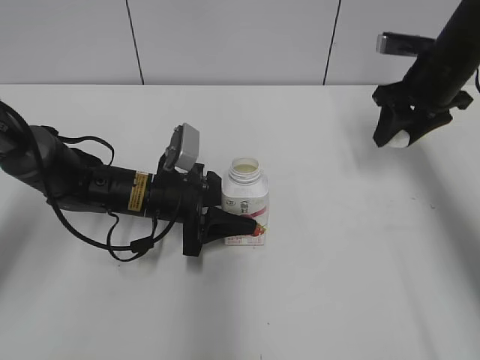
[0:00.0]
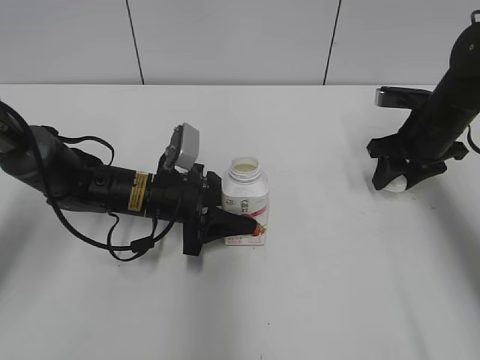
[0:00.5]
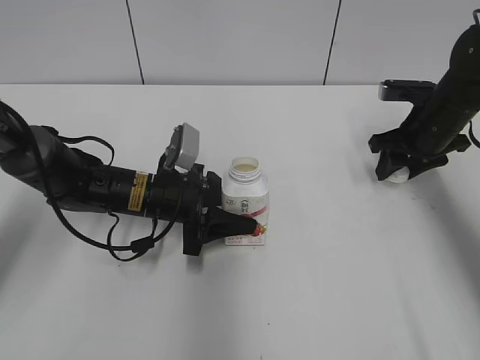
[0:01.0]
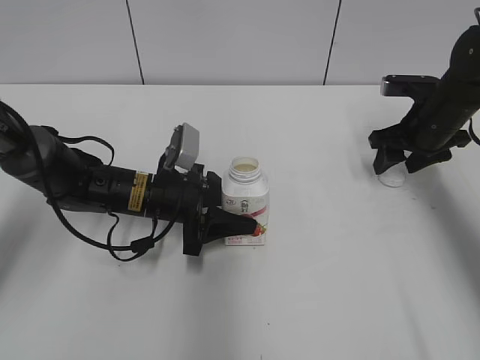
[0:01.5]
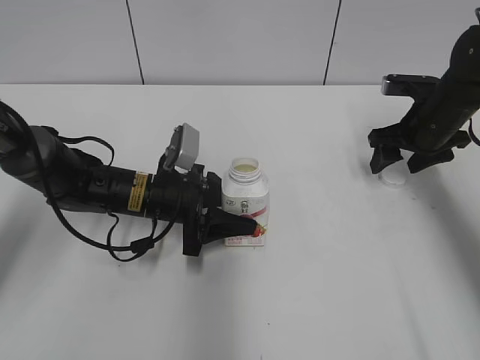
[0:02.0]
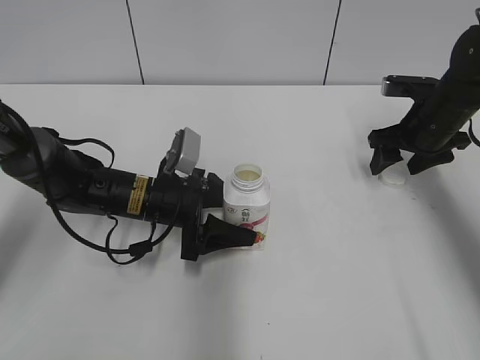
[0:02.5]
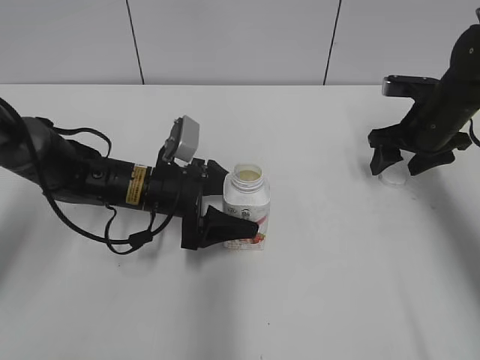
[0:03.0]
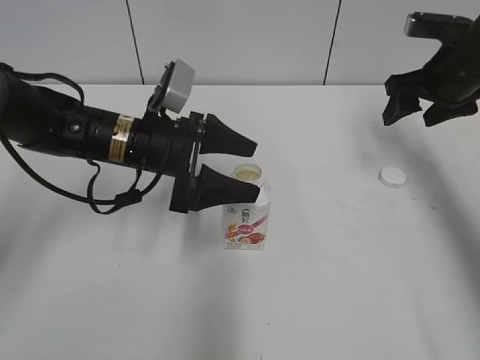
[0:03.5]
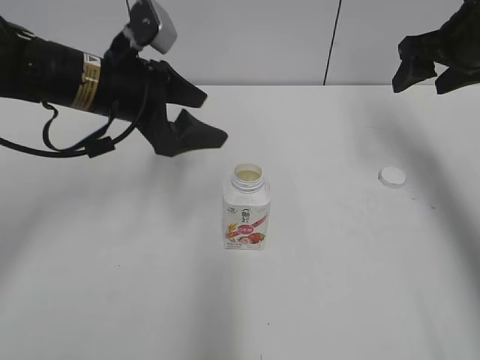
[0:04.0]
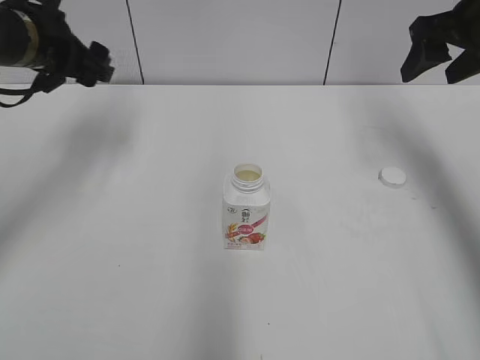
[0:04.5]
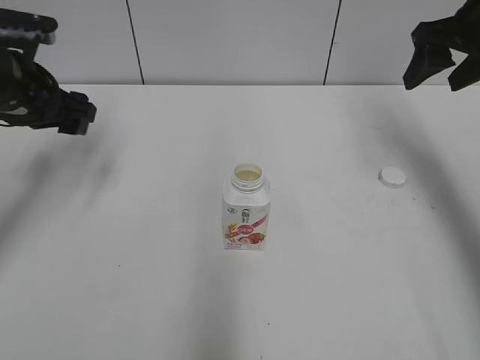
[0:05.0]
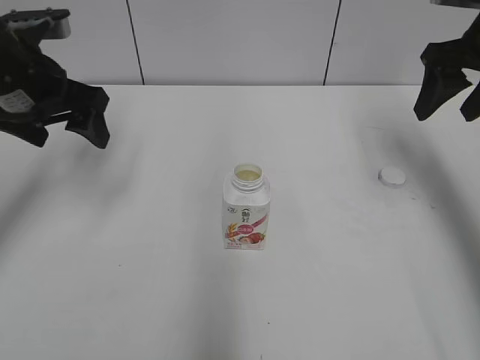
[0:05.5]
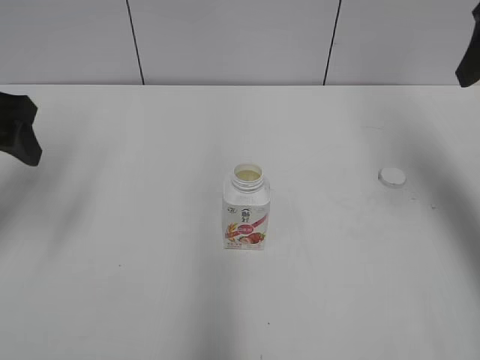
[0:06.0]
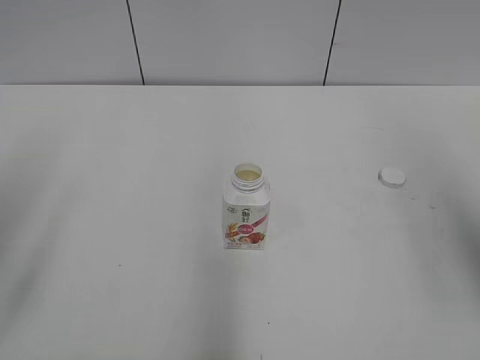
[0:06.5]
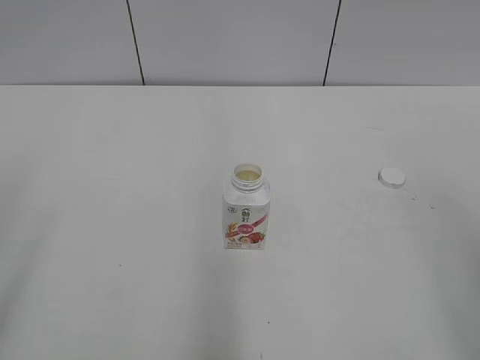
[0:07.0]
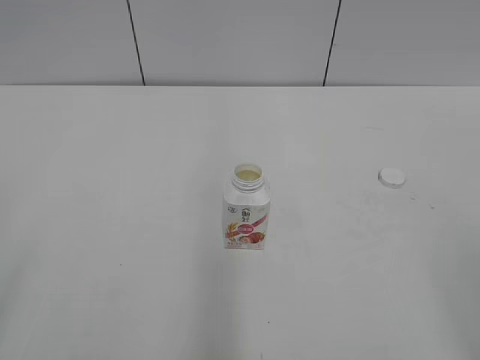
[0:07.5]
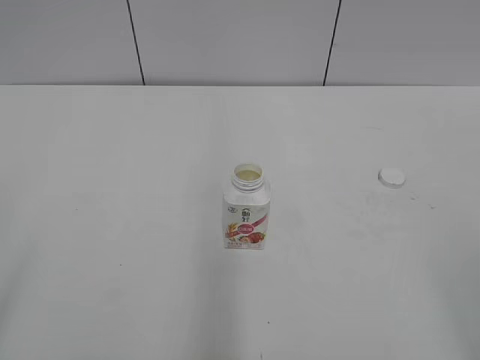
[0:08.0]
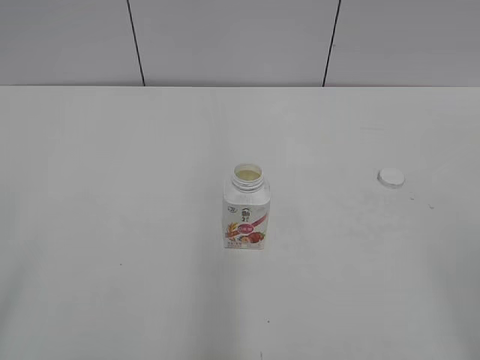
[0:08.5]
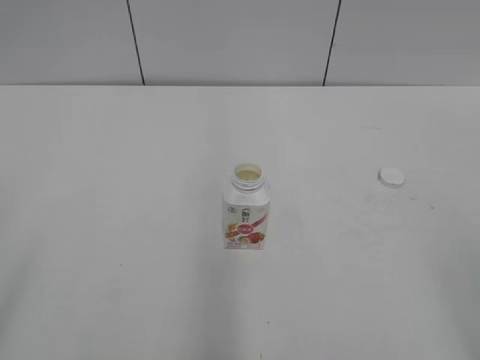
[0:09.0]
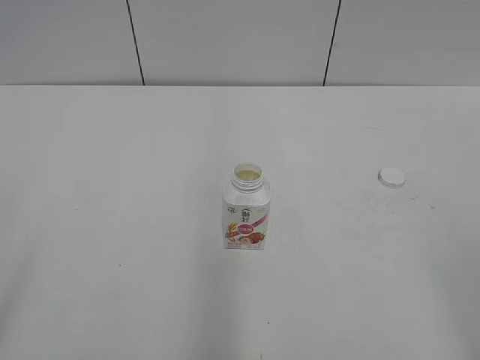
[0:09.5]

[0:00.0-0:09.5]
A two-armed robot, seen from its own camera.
Step, 0:00.0 to 0:01.5: Place the bottle cap on the right.
Step, 0:02.0 to 0:02.5: Place the Yili Changqing with the left hand.
0:00.0 to 0:02.0: The right gripper moves downward, roughly 5 cm, and opens its fingers.
0:02.0 to 0:04.0: Both grippers travel together upward, some 15 cm. The left gripper opens its fingers.
0:04.0 to 0:05.5: The left gripper moves to the left, approximately 10 cm.
0:05.5 to 0:07.5: Both grippers move backward, some 35 cm.

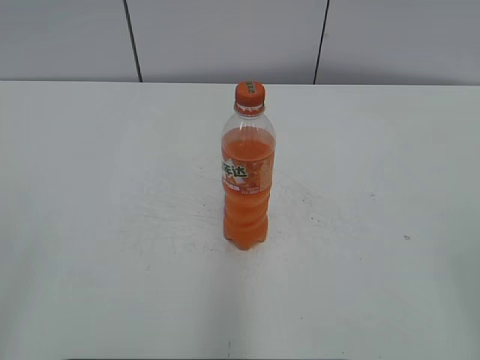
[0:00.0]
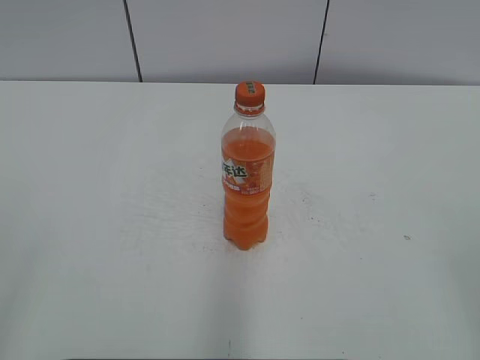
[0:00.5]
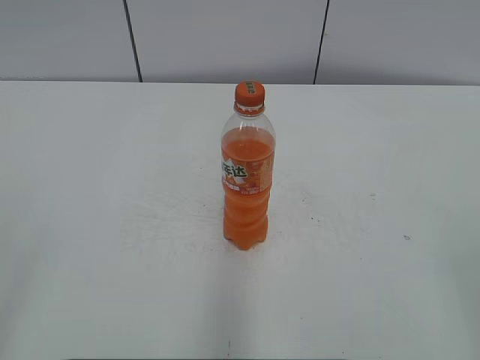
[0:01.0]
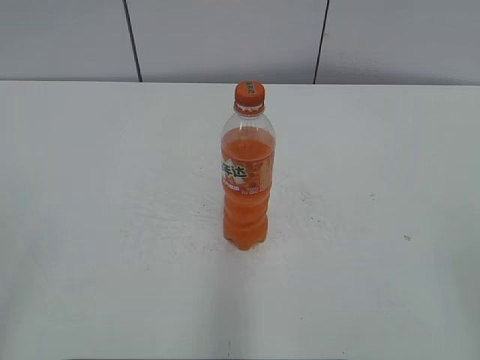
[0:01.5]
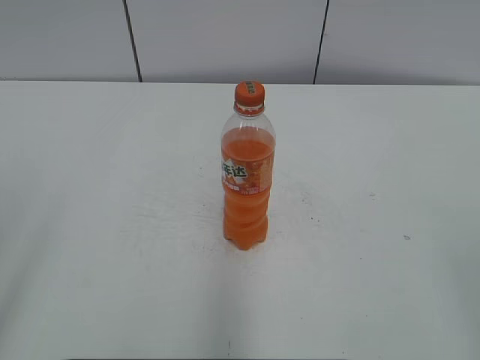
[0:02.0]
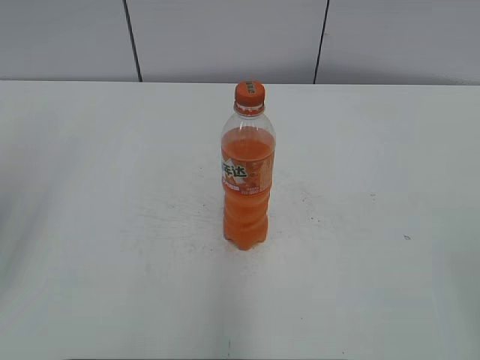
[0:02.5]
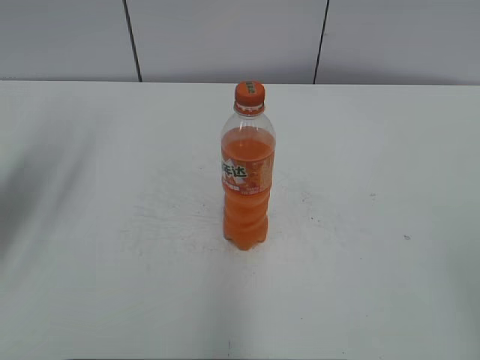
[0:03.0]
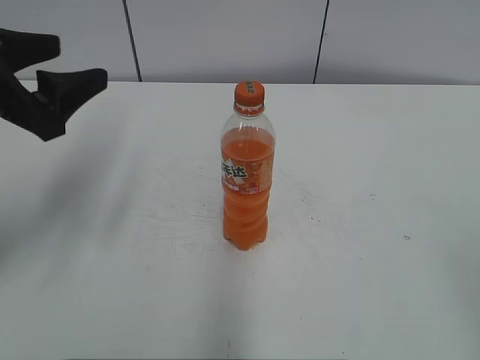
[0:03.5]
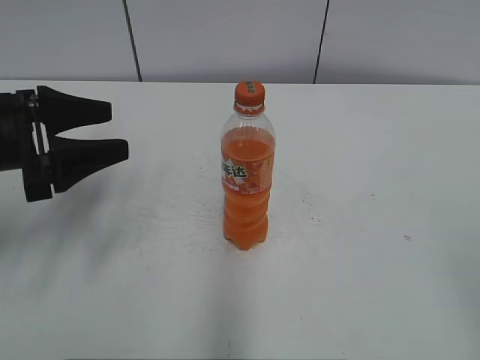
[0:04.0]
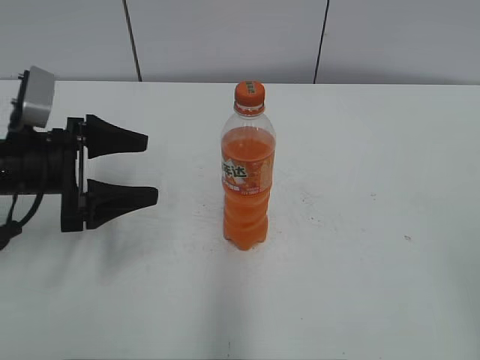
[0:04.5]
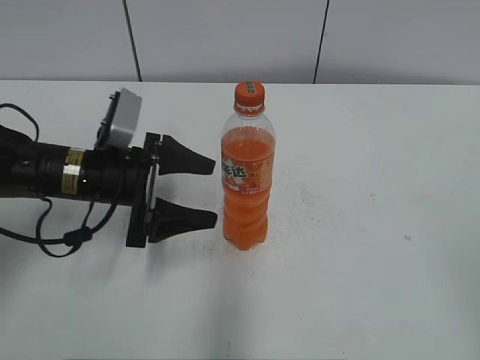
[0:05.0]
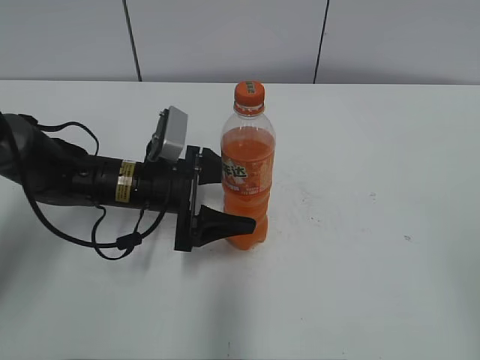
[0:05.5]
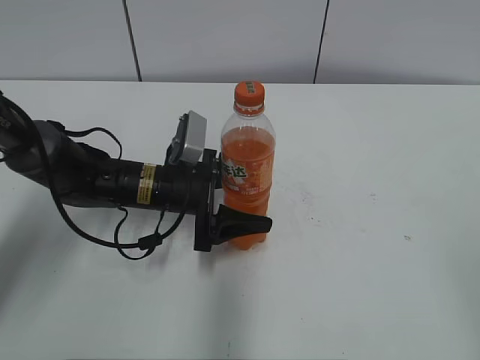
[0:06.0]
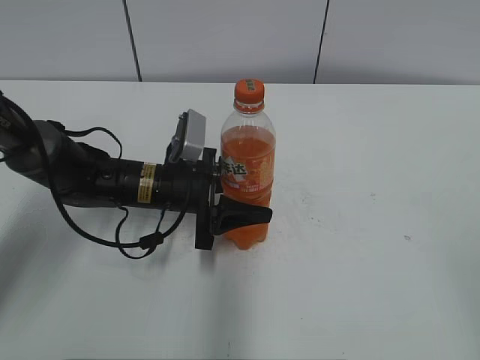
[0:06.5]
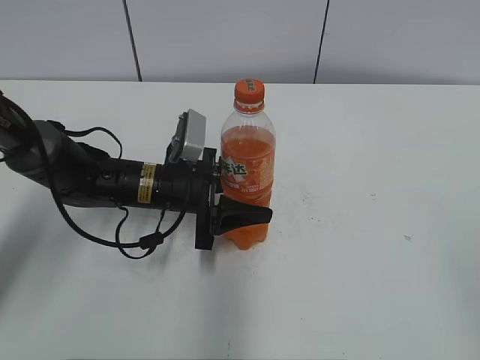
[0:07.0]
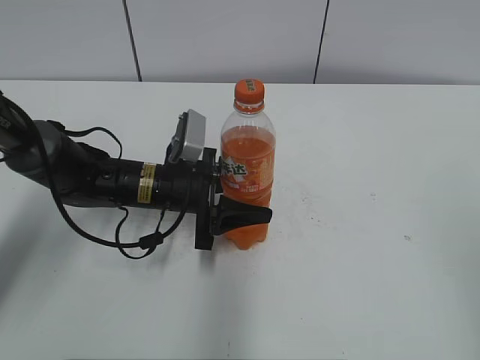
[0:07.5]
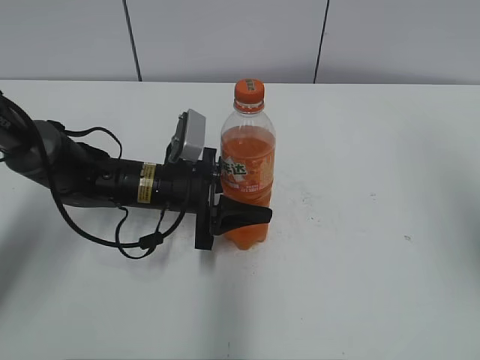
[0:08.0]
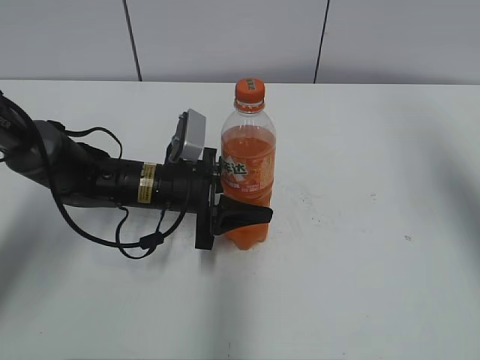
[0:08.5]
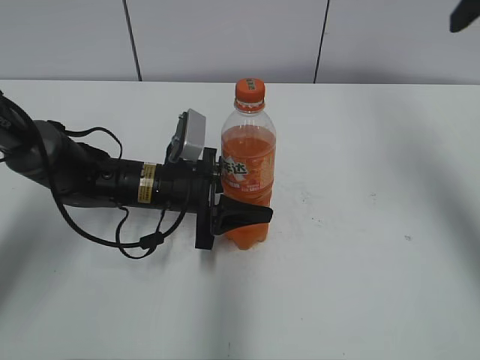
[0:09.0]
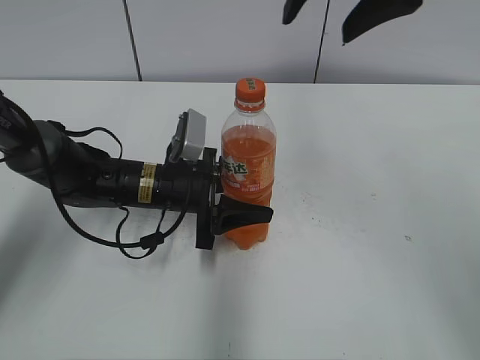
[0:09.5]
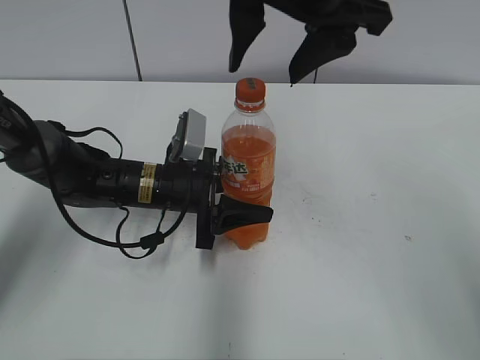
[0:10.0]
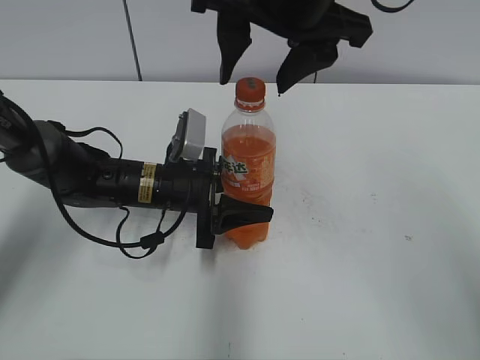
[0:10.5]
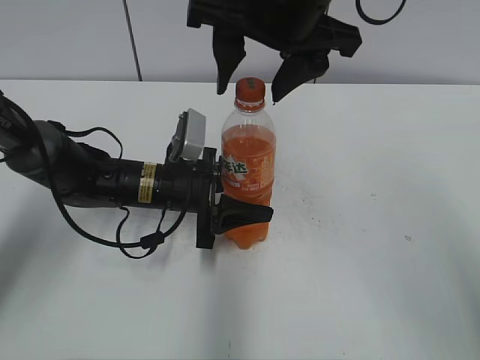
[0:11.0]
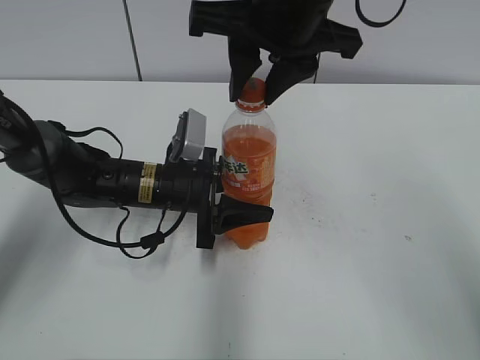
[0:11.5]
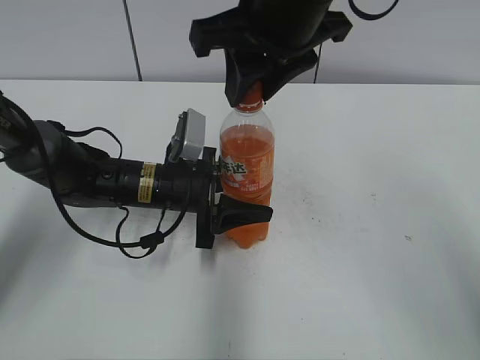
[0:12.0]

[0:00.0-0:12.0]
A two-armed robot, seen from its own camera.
Step, 0:00.0 to 0:06.5: Grab the Mirinda with the left hand.
0:02.0 to 0:04.0: The left gripper heads forward and downward, covering some 30 cm.
0:04.0 to 0:06.0: The left gripper heads to the right, downward and forward, covering approximately 20 cm.
0:06.0 to 0:08.0: The left gripper closes its fingers. Meanwhile the right gripper moves forward and upward, some 15 cm.
0:08.0 to 0:10.0: The right gripper is displaced to the left and forward by approximately 30 cm.
0:10.0 to 0:12.0: The right gripper closes its fingers.

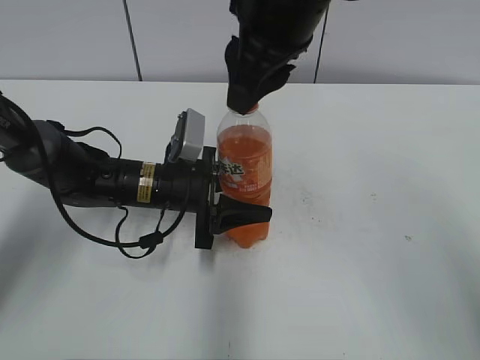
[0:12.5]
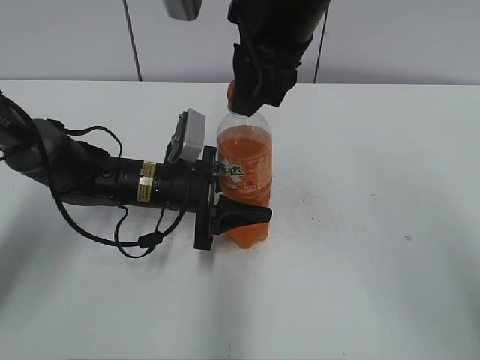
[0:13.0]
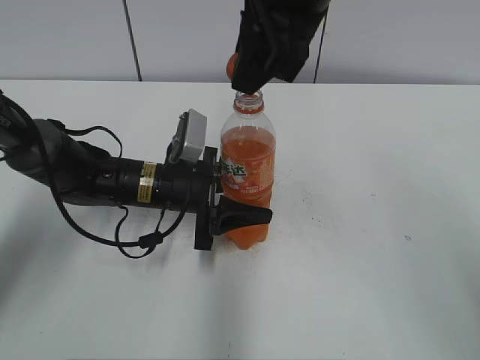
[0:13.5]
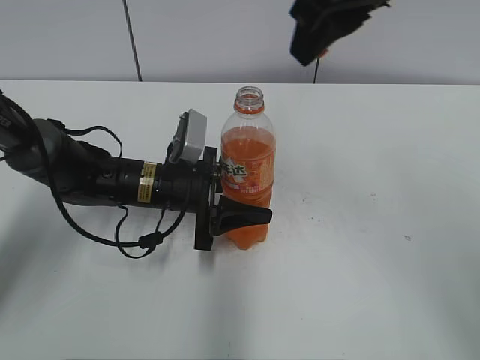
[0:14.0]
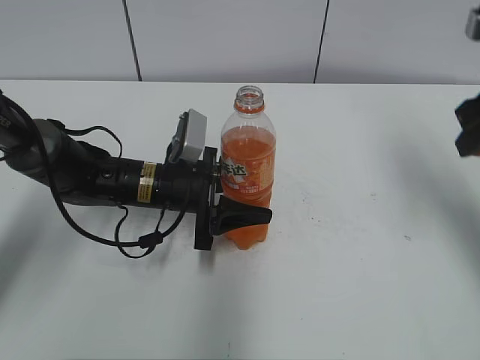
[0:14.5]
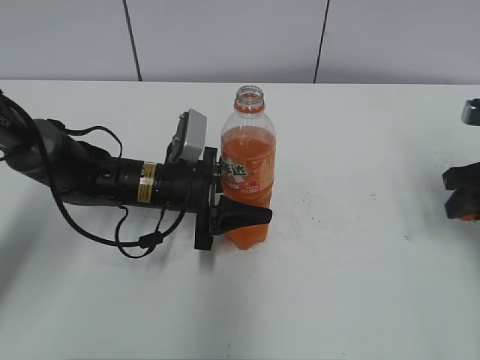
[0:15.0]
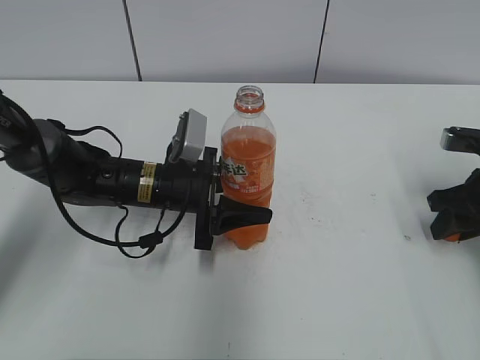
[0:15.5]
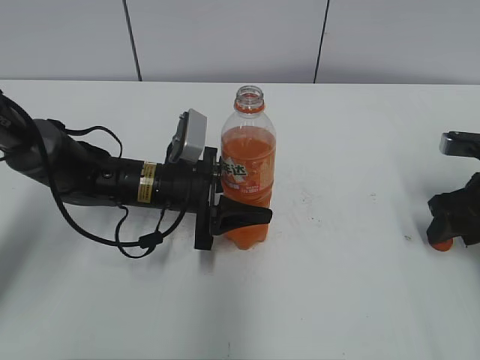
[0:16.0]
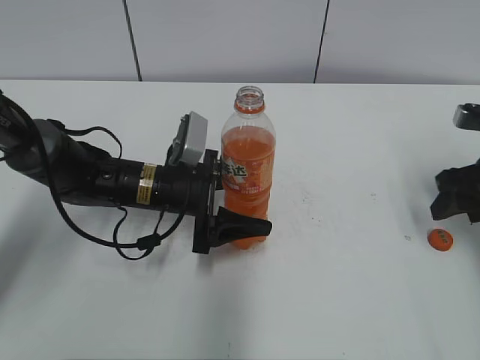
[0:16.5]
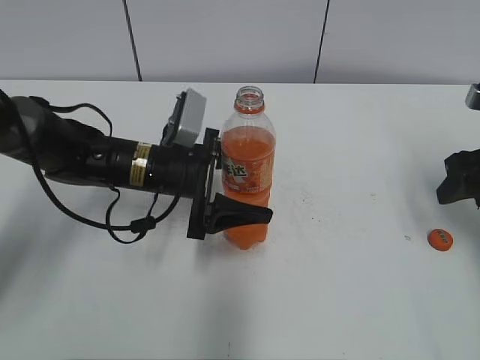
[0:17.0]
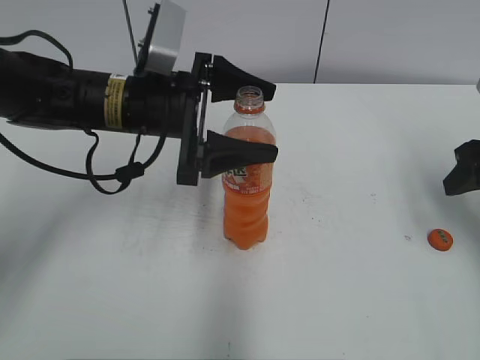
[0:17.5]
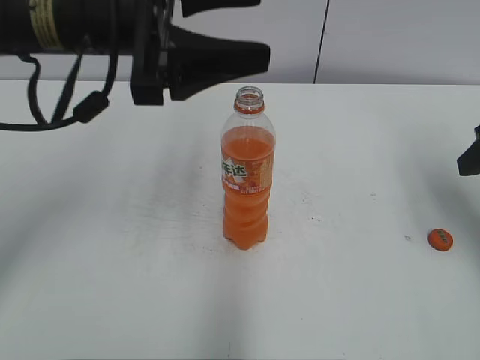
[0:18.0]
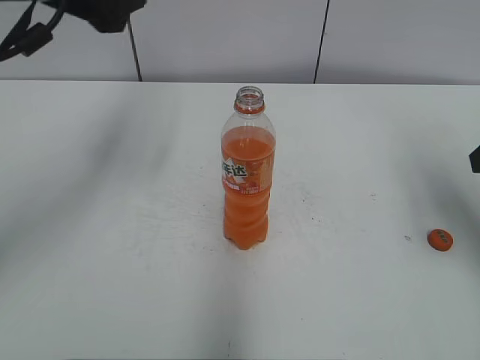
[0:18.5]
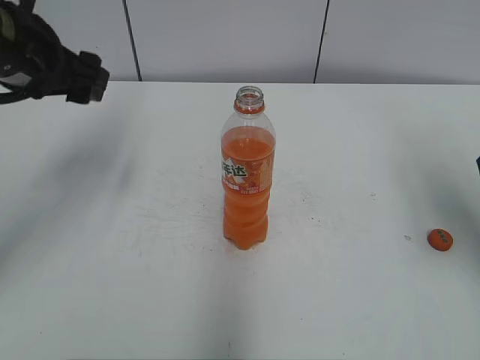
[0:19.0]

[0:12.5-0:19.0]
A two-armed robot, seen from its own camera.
Step, 0:13.5 to 0:16.0: Place the bottle cap on the right.
0:12.5 to 0:14.5: The right gripper heads to the right, covering roughly 25 cm.
0:14.5 to 0:17.0: The right gripper travels downward by approximately 10 cm, and opens up; the left gripper opens.
0:17.0 to 0:19.0: The right gripper travels upward and backward by approximately 10 cm. The left gripper shifts roughly 20 cm upward and to the left.
